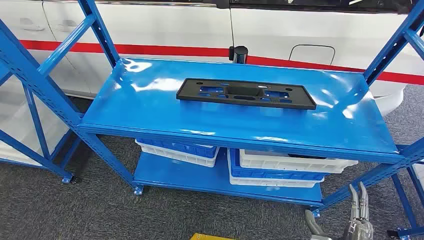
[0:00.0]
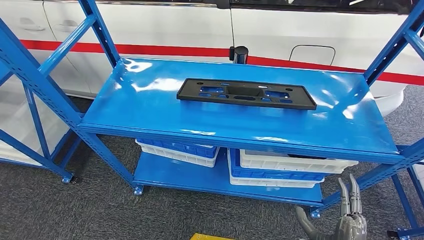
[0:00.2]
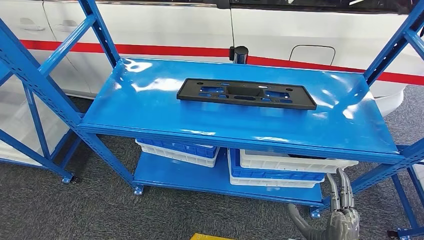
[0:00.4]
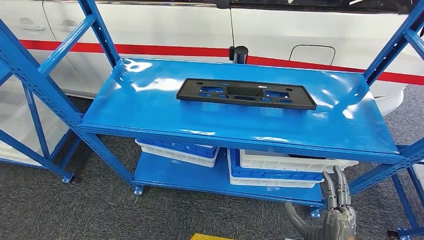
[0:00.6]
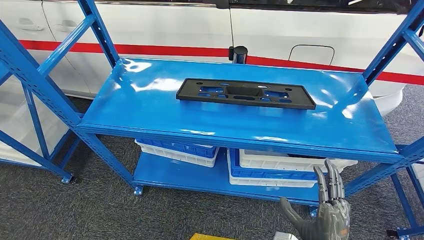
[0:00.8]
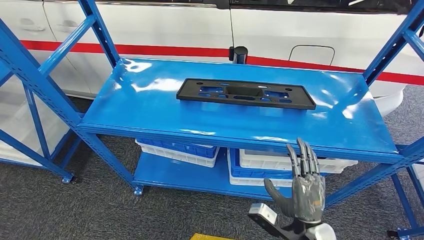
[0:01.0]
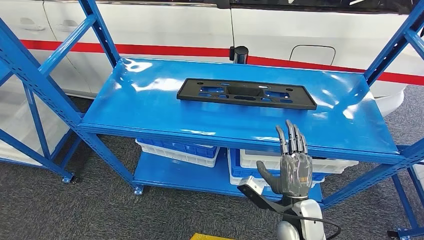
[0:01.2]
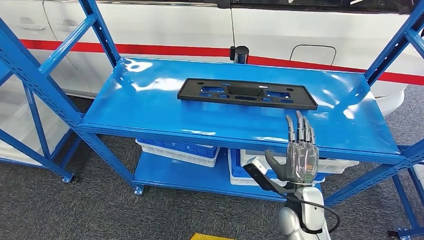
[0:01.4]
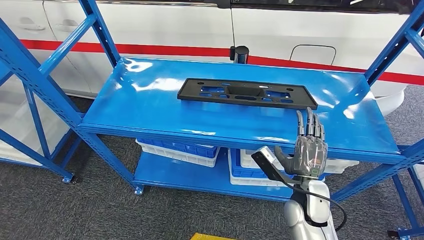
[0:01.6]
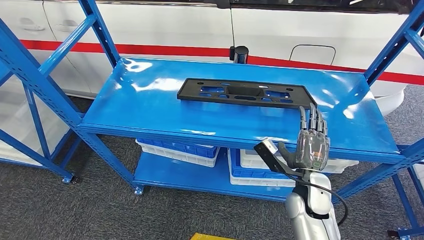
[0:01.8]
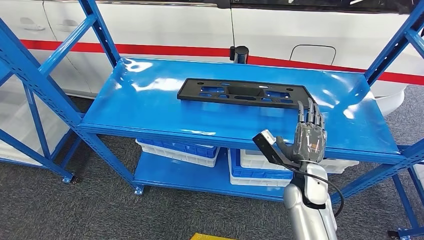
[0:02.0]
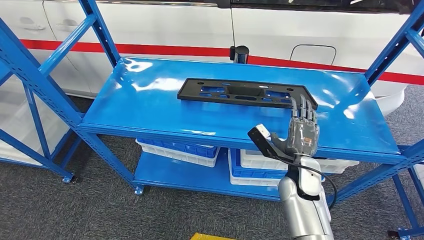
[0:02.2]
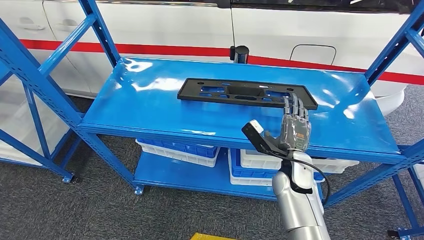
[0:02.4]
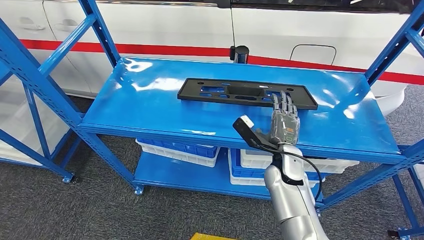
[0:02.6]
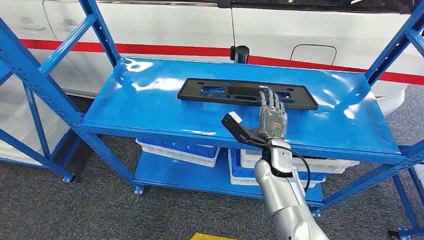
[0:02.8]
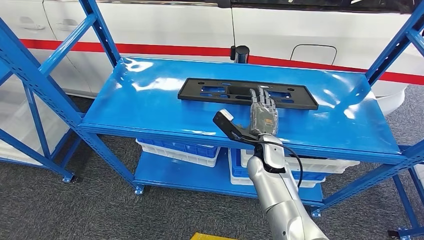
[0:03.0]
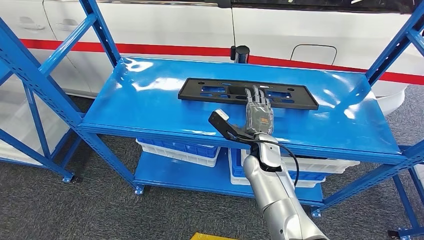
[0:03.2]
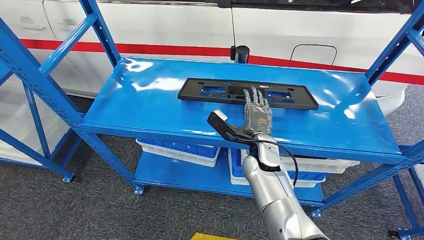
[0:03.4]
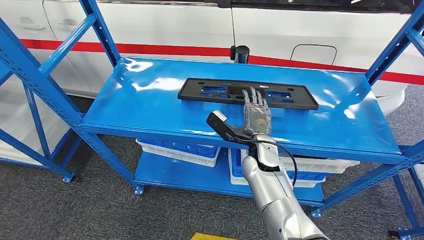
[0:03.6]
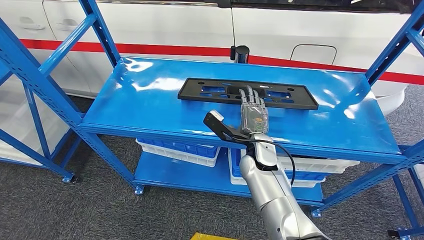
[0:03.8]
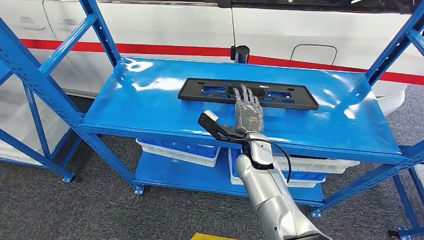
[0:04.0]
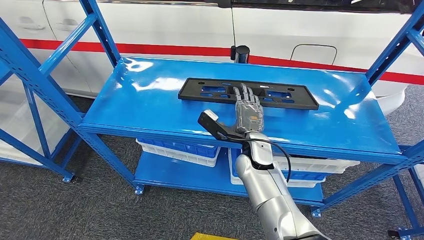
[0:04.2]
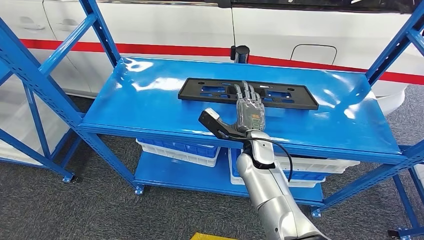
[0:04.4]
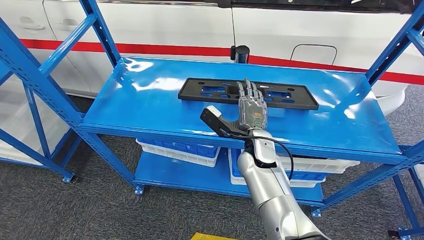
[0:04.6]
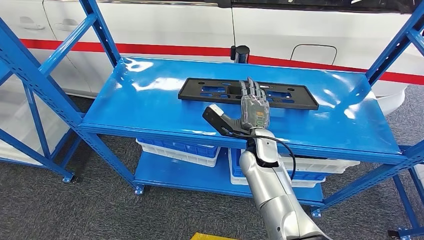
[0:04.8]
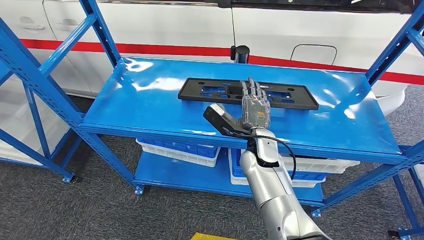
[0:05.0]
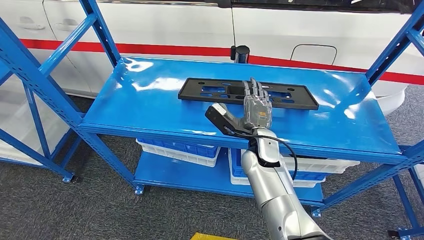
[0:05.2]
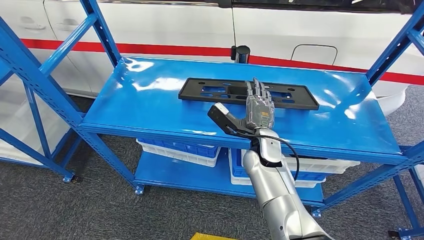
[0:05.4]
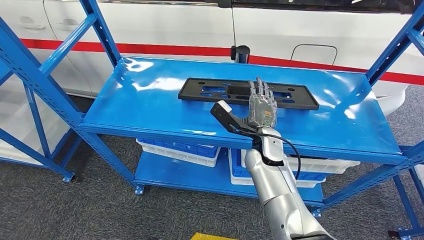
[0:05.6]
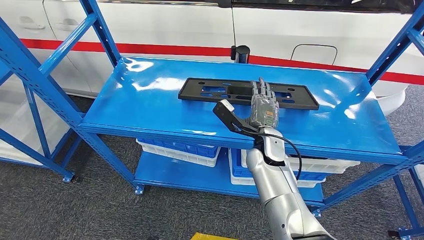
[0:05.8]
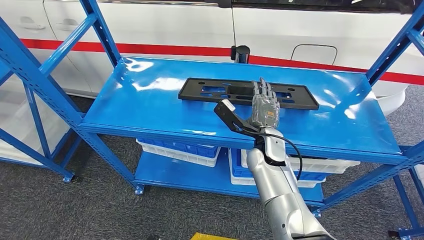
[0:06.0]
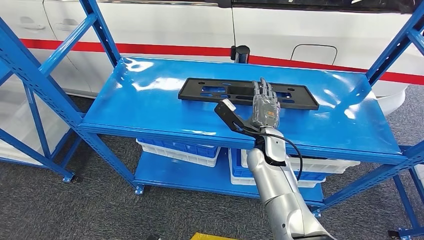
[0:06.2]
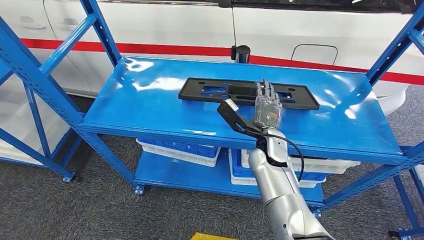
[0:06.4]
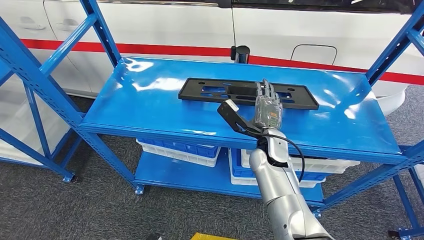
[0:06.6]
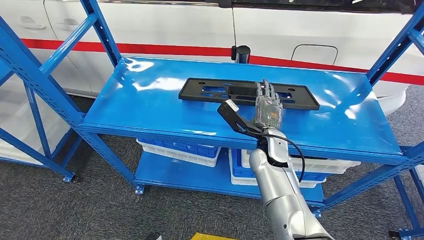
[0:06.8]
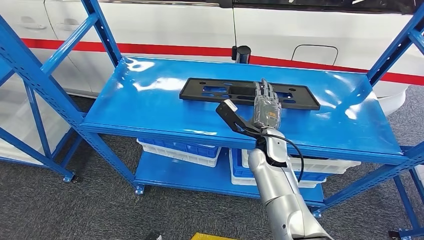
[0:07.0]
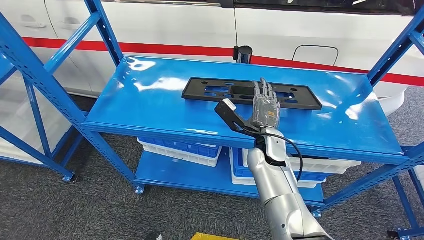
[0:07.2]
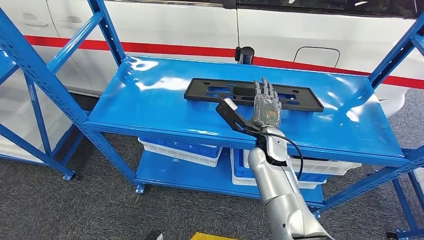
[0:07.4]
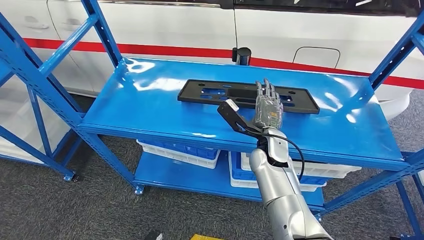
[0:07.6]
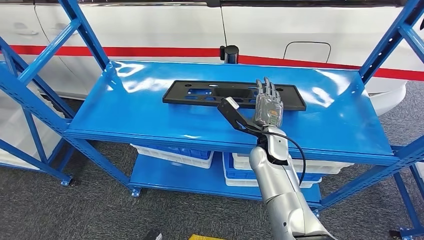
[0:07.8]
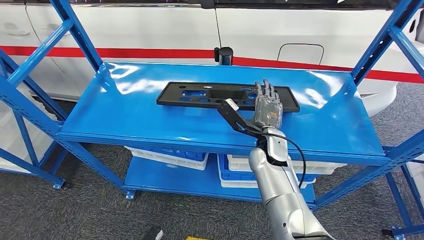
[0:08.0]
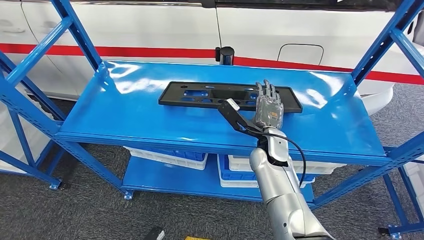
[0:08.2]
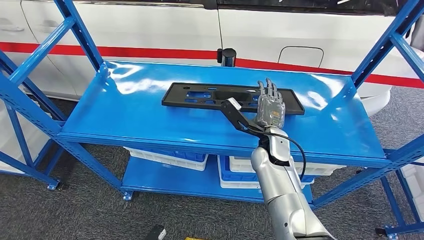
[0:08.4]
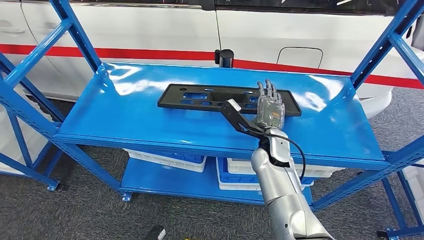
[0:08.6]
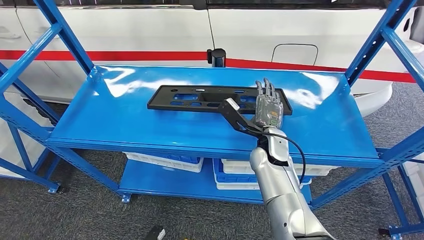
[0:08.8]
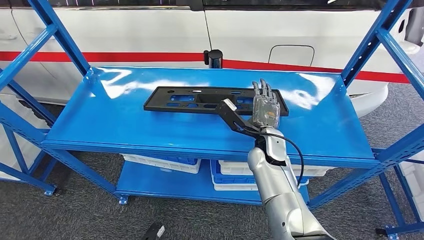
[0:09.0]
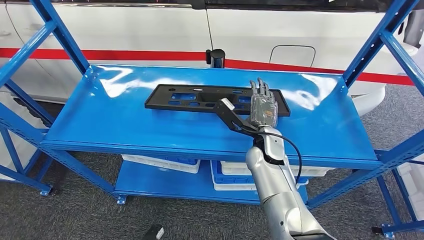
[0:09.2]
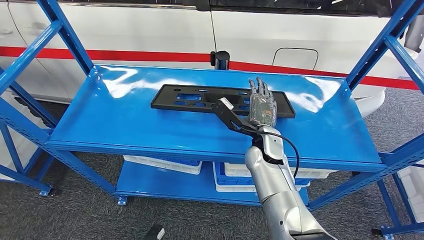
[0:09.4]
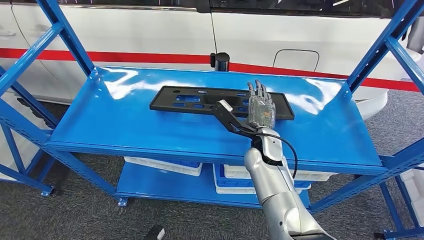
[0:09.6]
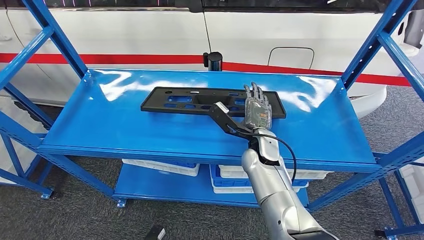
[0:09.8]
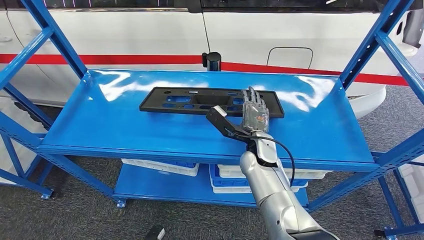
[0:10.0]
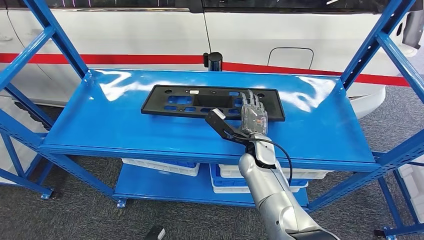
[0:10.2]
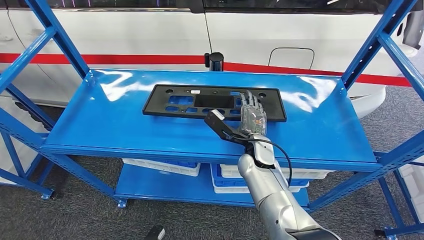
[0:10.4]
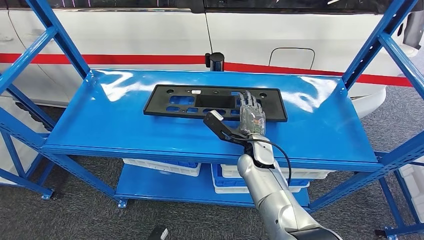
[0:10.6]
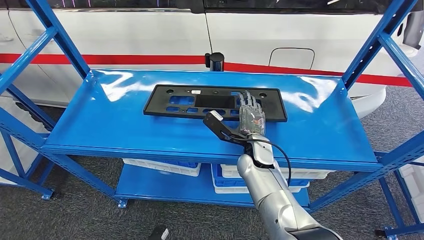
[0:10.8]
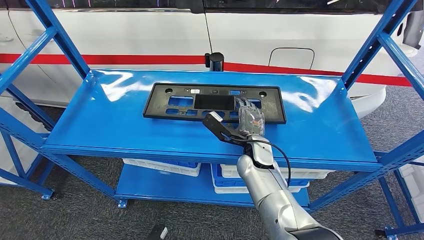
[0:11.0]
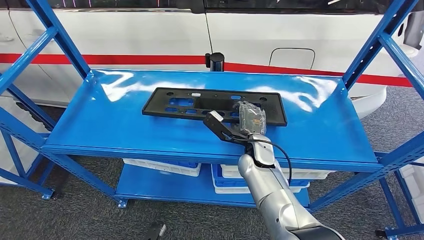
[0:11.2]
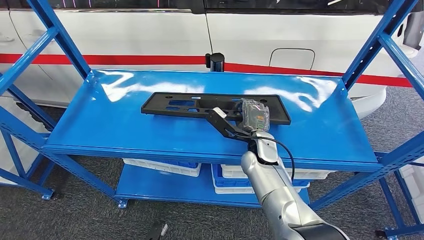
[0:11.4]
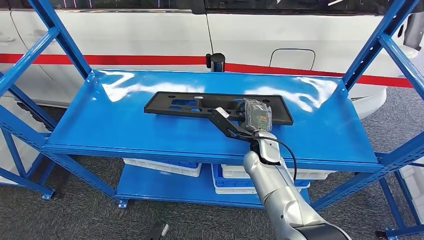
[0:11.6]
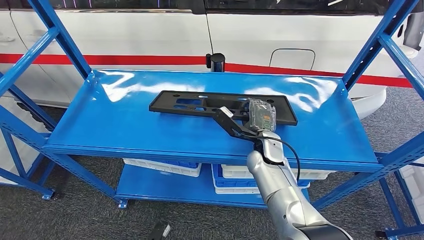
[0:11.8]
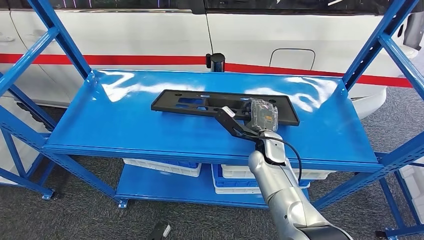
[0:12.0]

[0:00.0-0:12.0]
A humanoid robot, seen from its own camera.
0:01.6 to 0:03.0: The right hand is displaced forward and to the left by some 10 cm.
0:03.0 to 0:07.6: The hands move only a little.
0:10.4 to 0:12.0: There are only small adjustments of the hands.

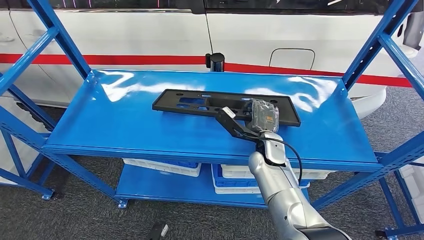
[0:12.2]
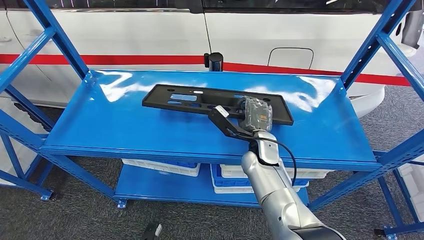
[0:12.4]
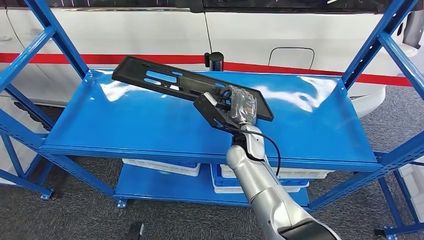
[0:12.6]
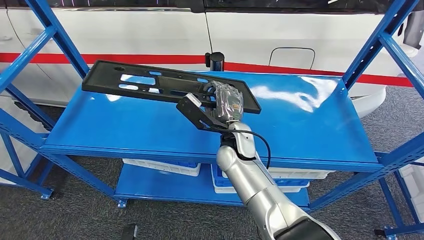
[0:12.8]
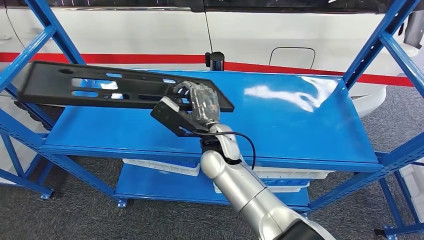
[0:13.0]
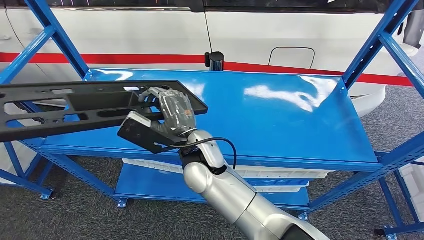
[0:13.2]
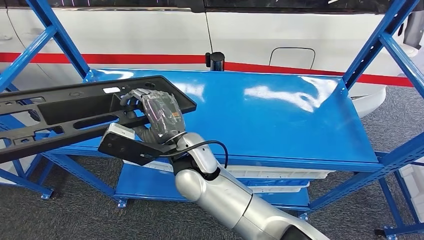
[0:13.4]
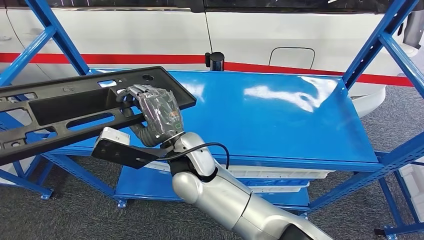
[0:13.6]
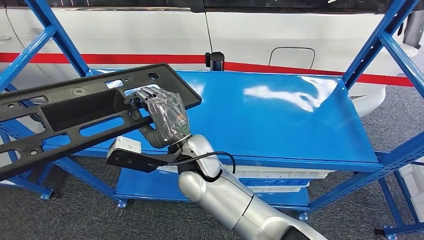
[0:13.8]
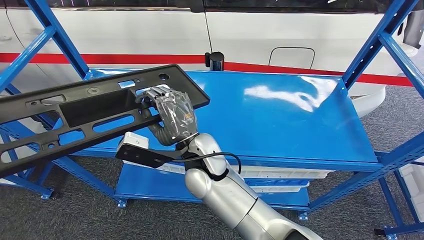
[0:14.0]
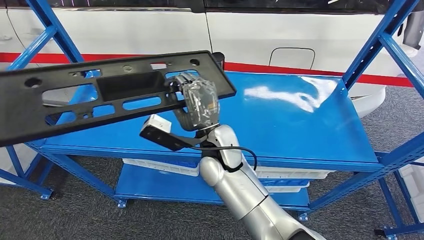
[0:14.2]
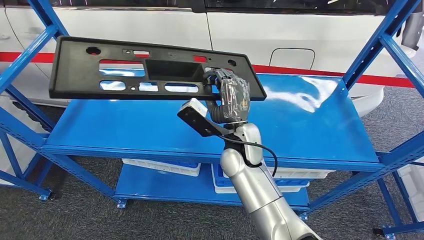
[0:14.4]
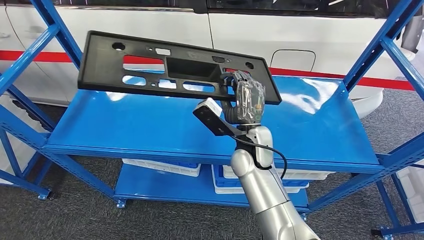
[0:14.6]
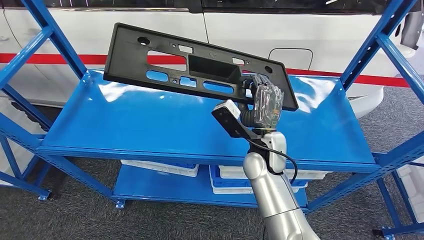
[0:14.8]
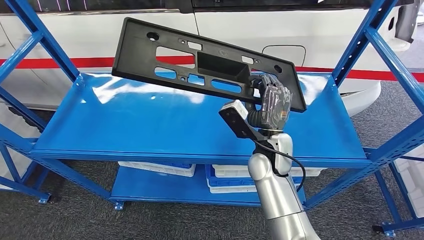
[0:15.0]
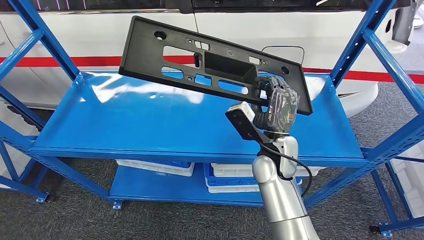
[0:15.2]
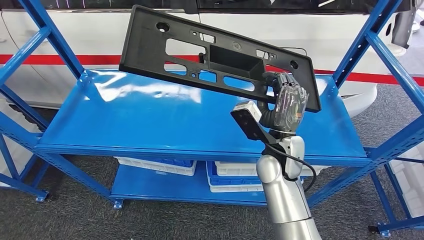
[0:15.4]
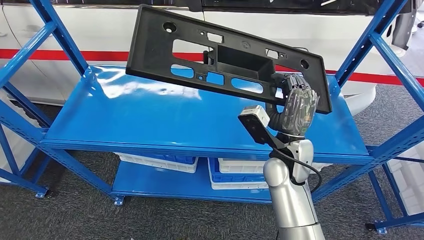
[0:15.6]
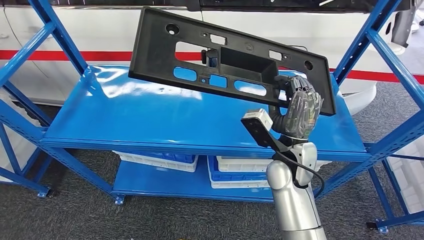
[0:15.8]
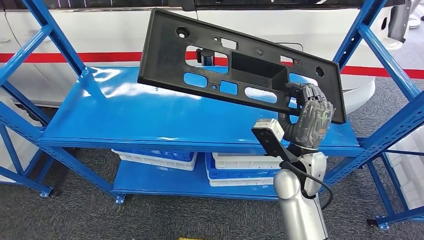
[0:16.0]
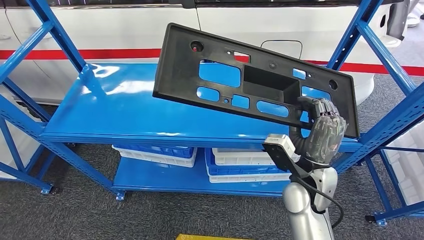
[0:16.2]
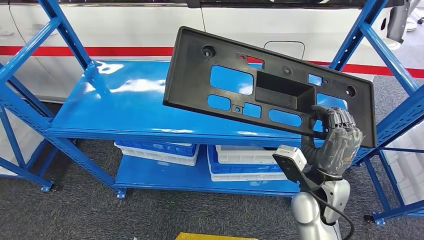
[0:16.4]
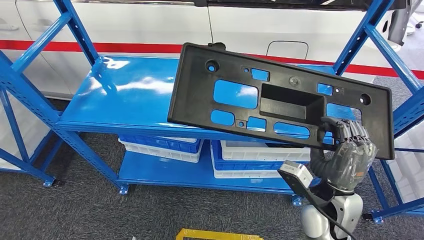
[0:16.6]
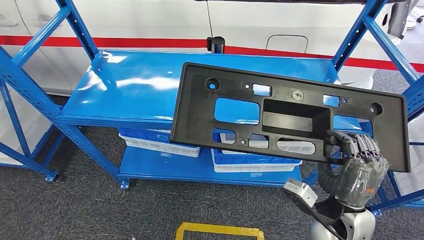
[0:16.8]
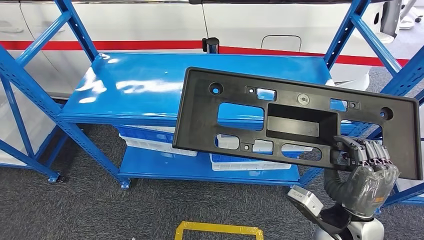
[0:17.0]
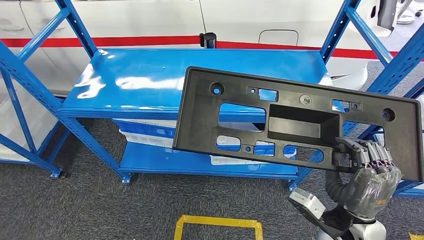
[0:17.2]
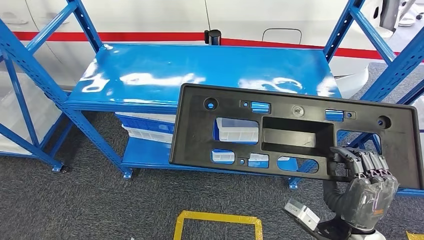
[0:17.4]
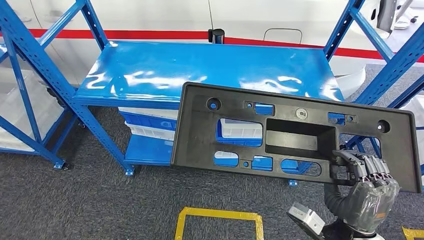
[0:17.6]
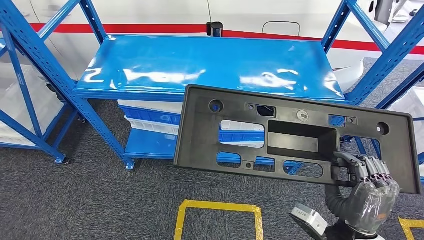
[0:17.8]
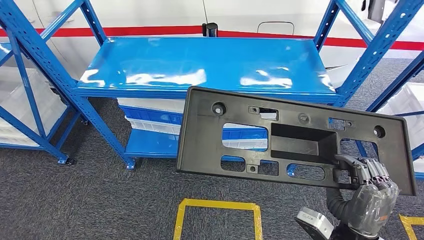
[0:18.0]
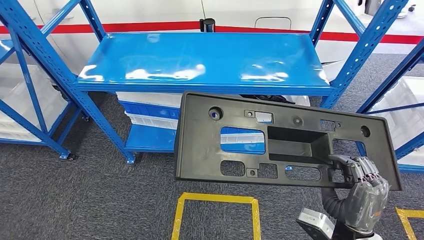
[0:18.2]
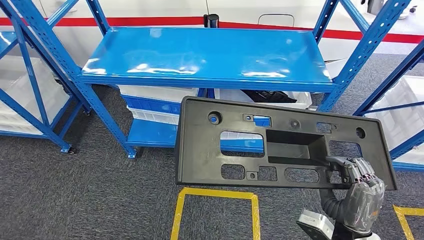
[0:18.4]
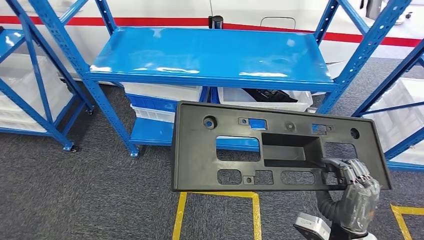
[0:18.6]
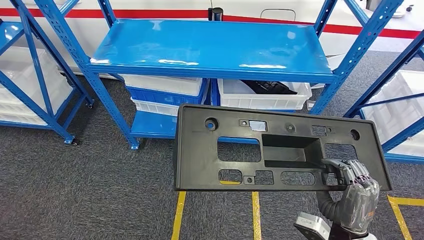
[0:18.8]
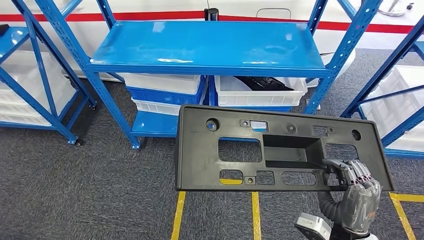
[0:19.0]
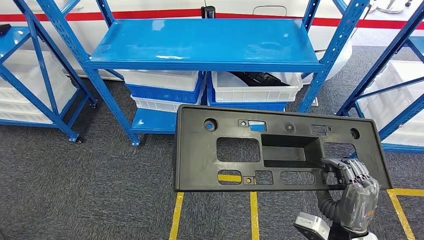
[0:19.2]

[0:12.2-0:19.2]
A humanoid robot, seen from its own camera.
Step, 0:12.2 to 0:17.2: Pick up the large material from the shelf.
